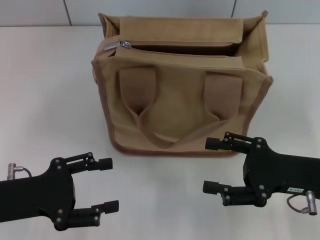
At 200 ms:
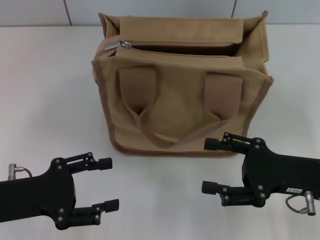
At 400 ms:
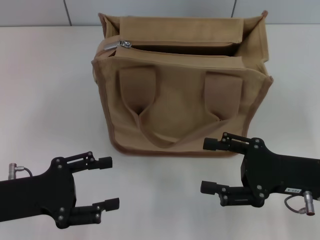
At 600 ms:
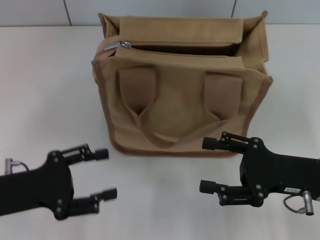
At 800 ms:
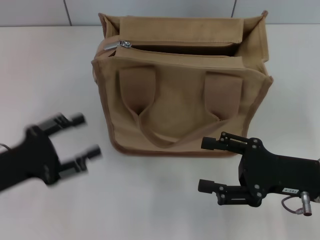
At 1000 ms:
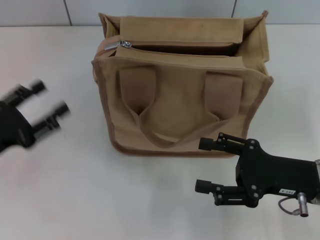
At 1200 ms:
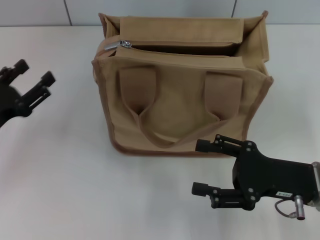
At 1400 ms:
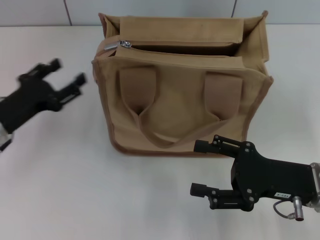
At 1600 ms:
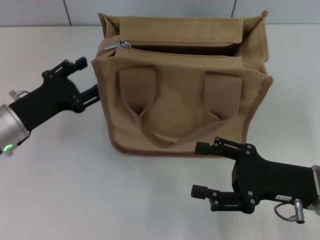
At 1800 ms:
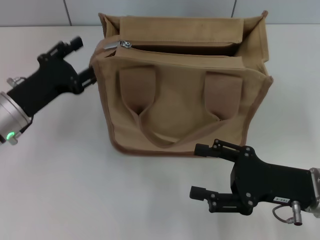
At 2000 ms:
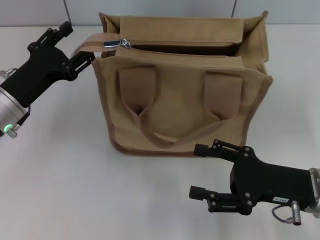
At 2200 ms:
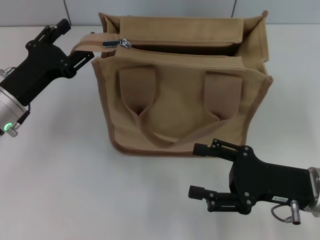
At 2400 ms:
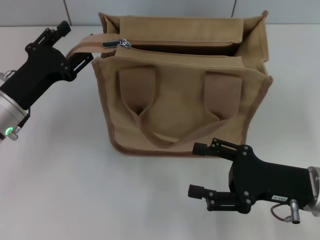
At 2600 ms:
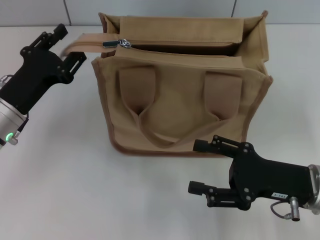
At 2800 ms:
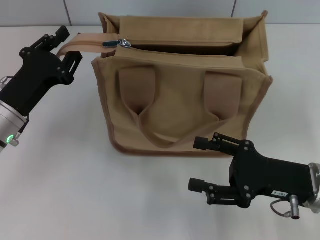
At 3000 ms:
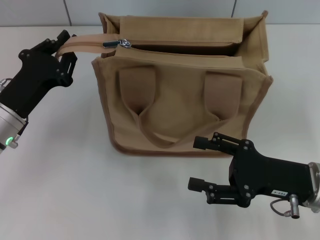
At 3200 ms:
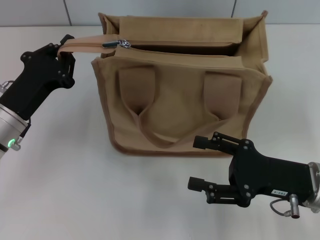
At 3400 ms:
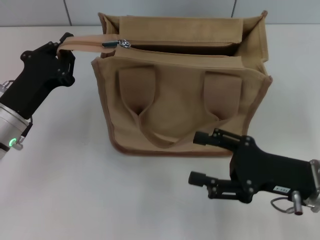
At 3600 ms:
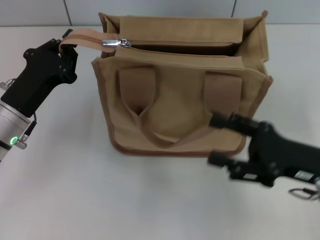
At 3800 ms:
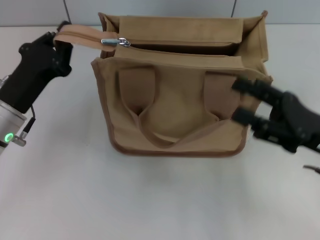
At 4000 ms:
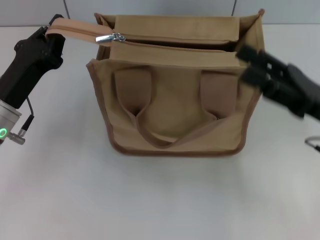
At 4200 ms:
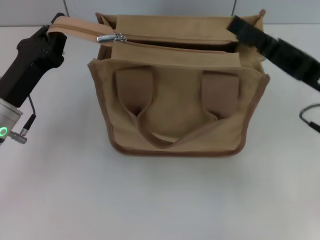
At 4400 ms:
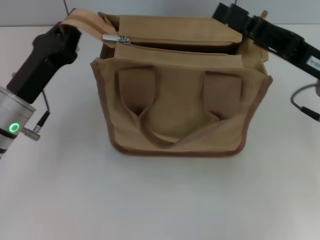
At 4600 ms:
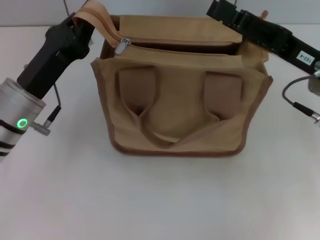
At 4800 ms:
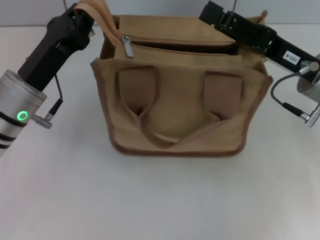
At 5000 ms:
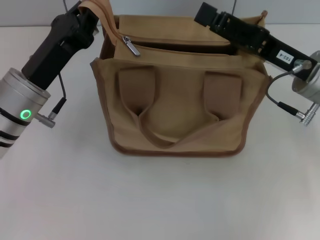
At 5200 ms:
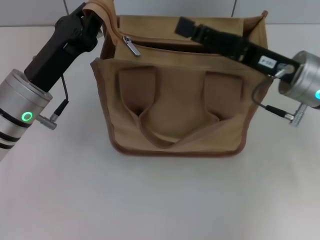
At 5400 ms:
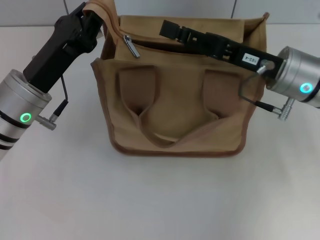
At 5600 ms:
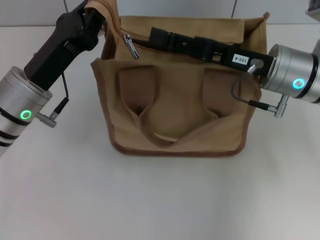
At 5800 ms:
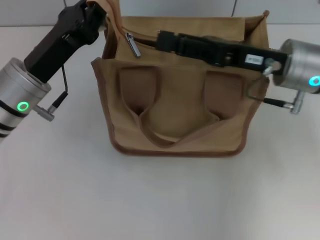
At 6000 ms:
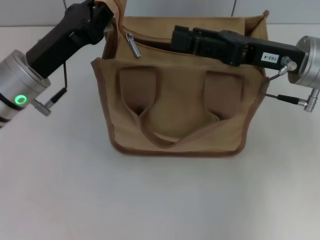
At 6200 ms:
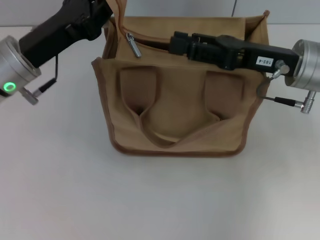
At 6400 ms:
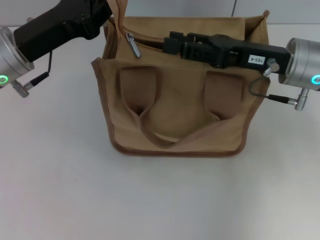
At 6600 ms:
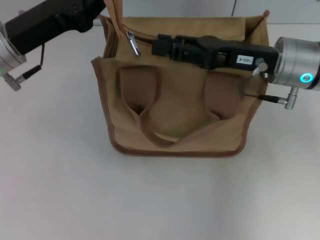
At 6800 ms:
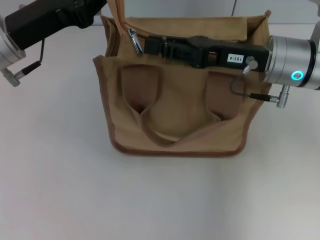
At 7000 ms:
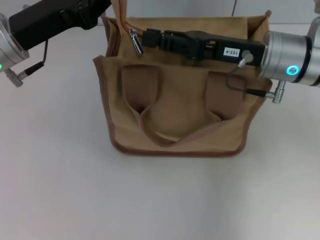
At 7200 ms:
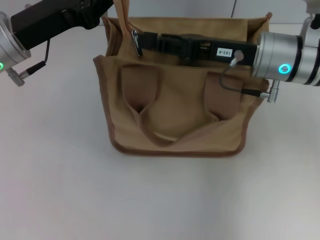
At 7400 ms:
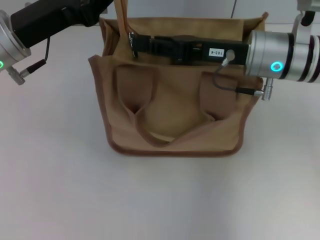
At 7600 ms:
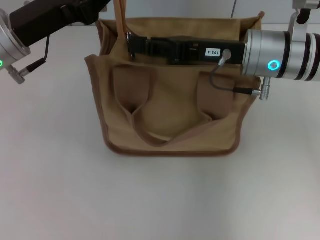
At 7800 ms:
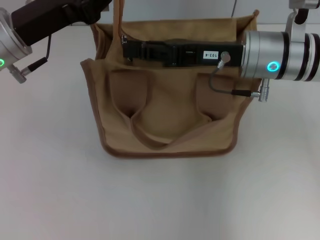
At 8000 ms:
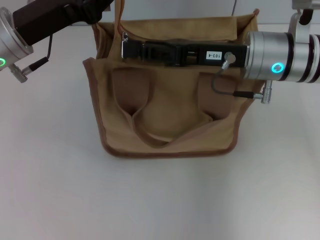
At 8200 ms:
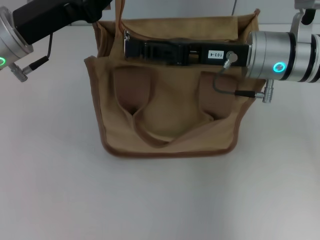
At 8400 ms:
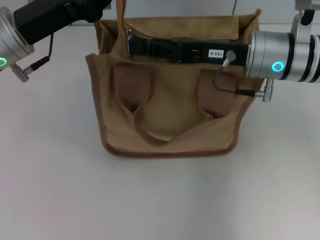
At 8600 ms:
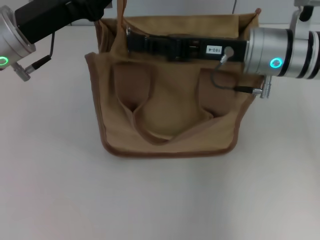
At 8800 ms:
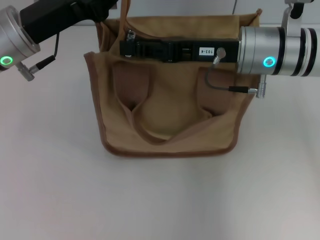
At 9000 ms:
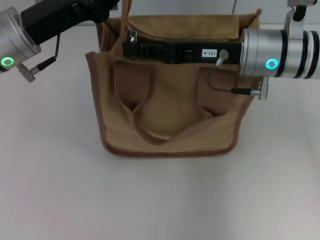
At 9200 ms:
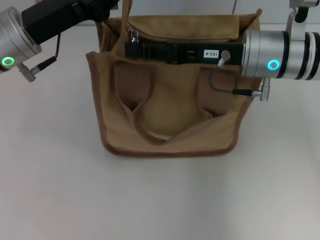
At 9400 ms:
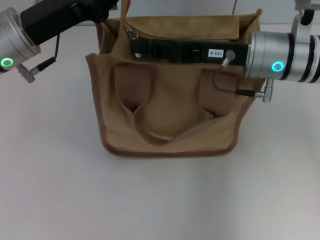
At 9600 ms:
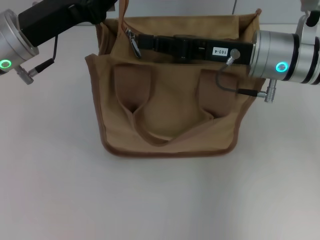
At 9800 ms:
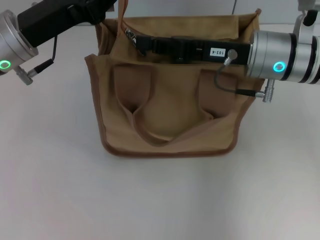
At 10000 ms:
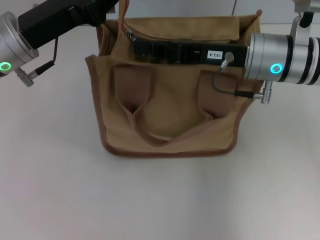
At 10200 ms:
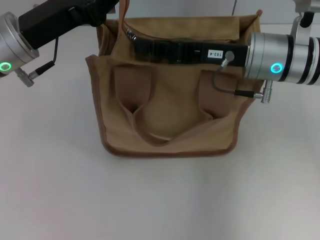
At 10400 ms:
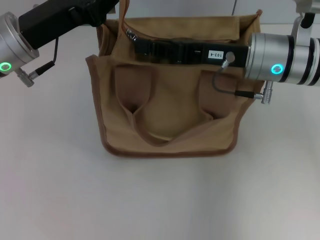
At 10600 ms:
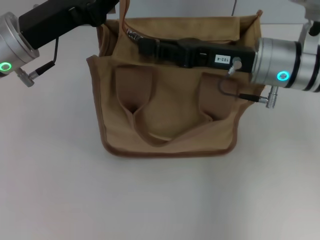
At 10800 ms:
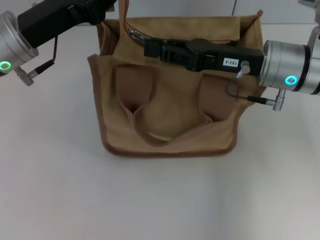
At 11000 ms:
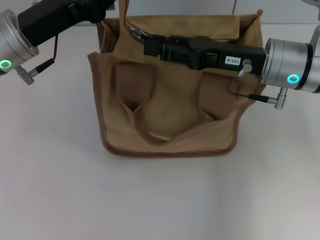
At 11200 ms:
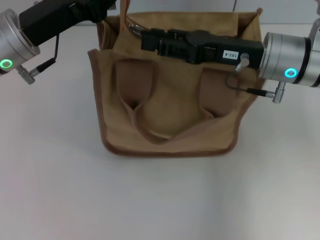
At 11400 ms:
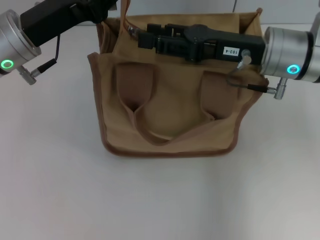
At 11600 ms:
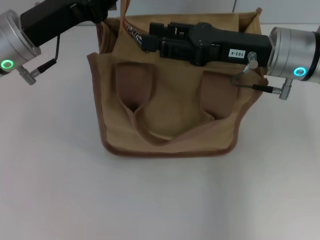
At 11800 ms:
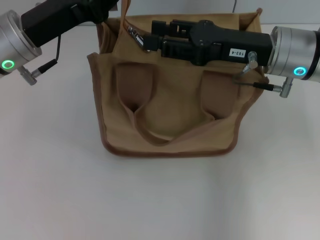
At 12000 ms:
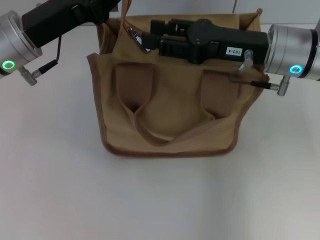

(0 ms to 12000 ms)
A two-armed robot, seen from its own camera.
0 ms - 1600 ms: The left gripper shifts approximately 10 cm forward.
1600 ms - 3000 ms: The left gripper closes.
3000 ms - 4400 ms: The left gripper closes. Meanwhile the right gripper shifts about 10 cm upward and forward.
4400 ms - 6000 ms: The left gripper moves some 5 cm.
6000 ms - 7600 ms: The left gripper shifts by about 5 cm. Meanwhile the right gripper goes about 5 cm to the left, and closes up.
7600 ms - 9000 ms: There are only small adjustments of the grippers.
9000 ms - 10400 ms: Neither gripper changes place.
10400 ms - 12000 ms: The right gripper opens.

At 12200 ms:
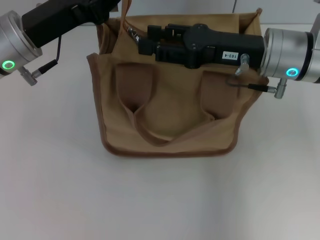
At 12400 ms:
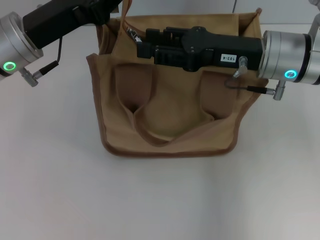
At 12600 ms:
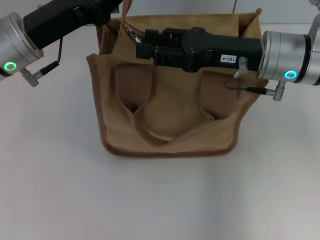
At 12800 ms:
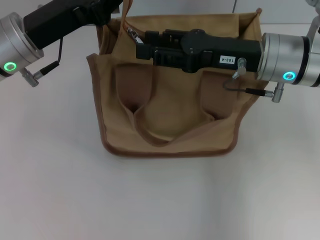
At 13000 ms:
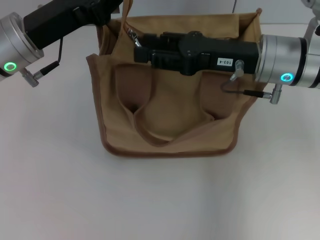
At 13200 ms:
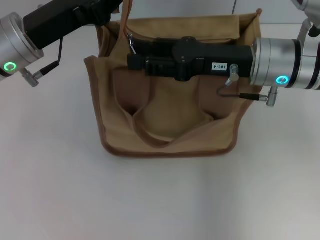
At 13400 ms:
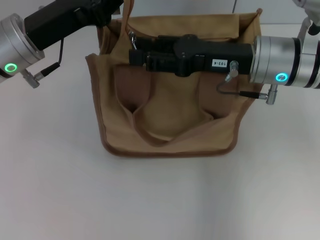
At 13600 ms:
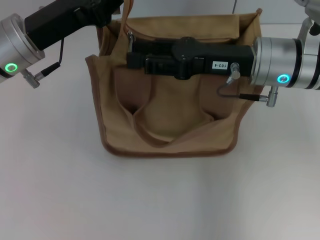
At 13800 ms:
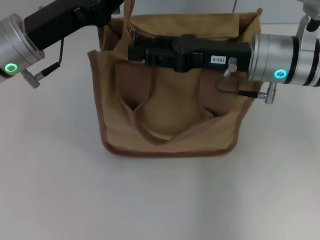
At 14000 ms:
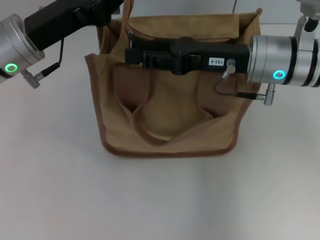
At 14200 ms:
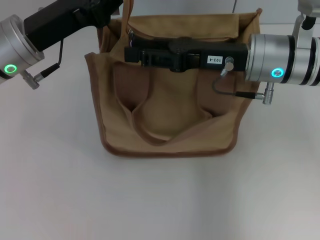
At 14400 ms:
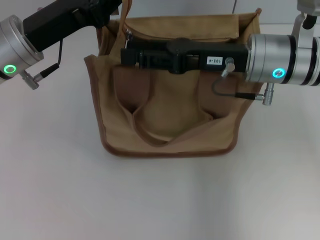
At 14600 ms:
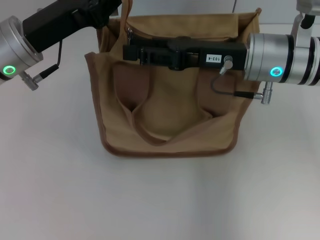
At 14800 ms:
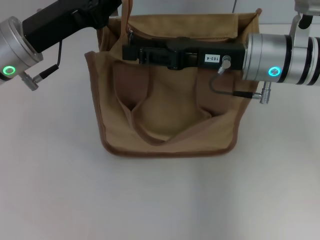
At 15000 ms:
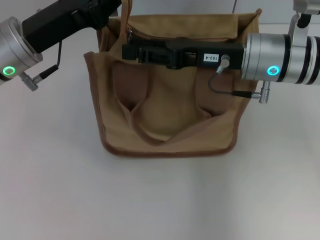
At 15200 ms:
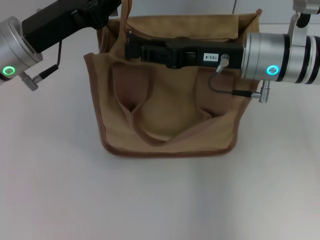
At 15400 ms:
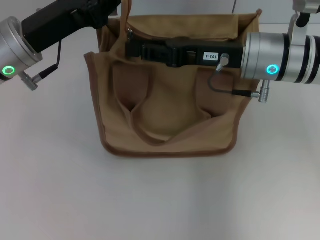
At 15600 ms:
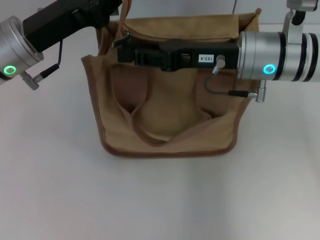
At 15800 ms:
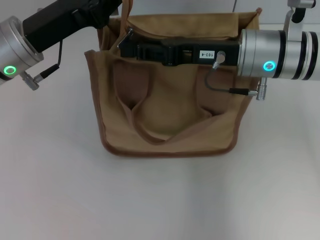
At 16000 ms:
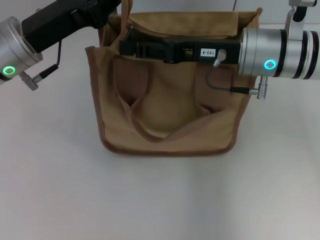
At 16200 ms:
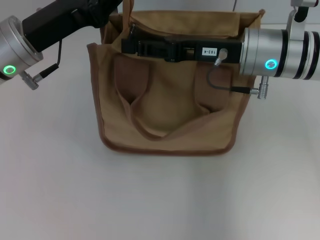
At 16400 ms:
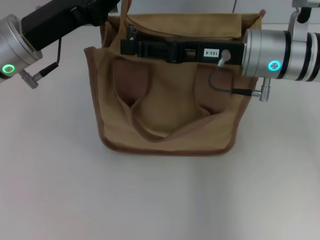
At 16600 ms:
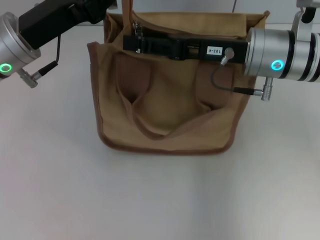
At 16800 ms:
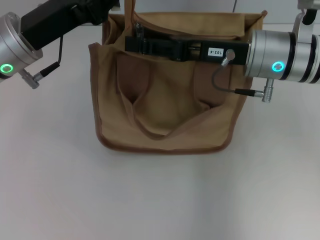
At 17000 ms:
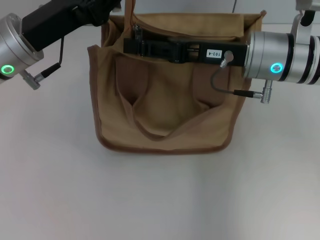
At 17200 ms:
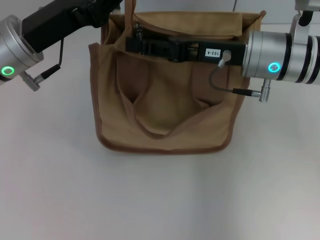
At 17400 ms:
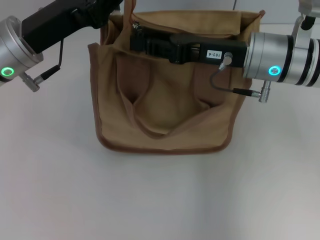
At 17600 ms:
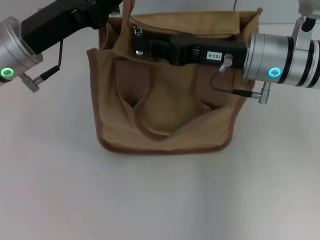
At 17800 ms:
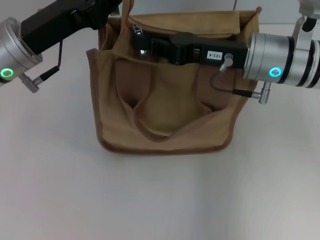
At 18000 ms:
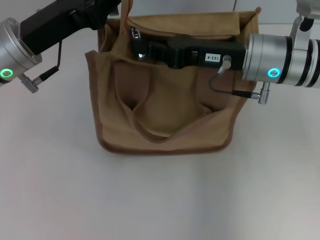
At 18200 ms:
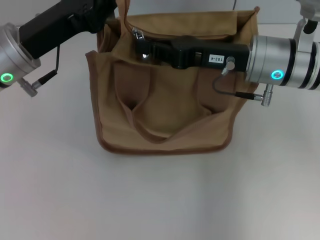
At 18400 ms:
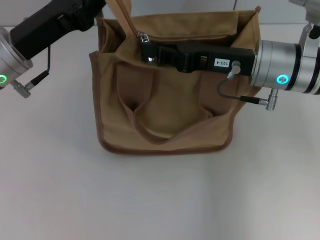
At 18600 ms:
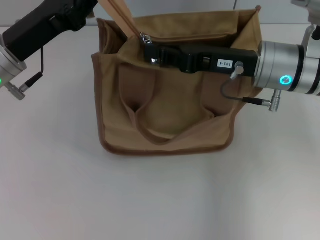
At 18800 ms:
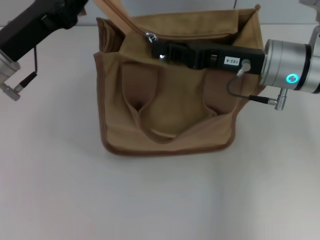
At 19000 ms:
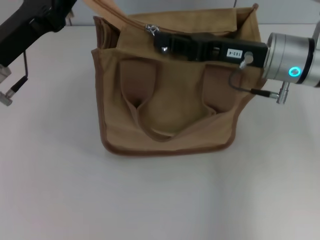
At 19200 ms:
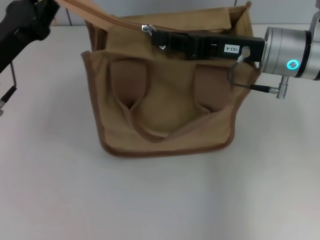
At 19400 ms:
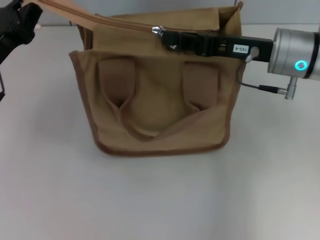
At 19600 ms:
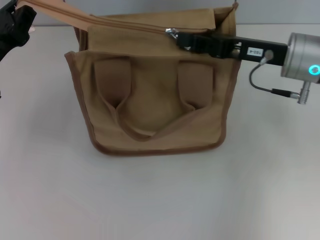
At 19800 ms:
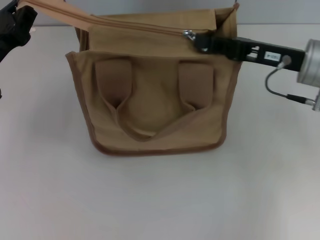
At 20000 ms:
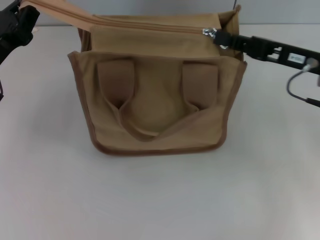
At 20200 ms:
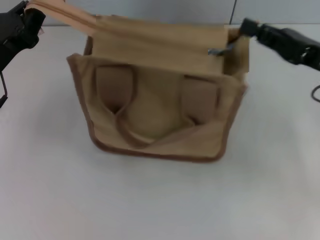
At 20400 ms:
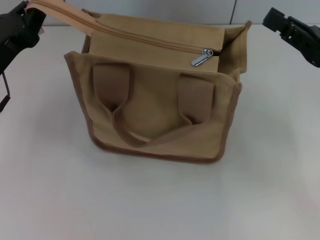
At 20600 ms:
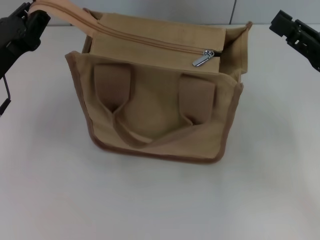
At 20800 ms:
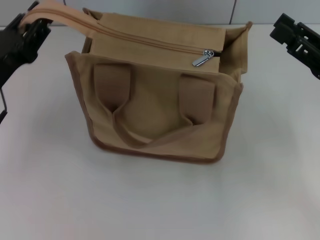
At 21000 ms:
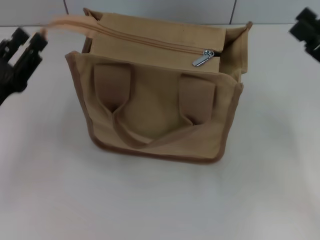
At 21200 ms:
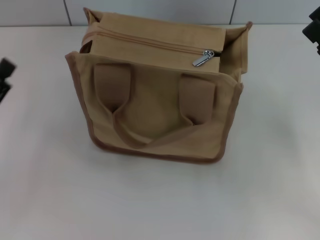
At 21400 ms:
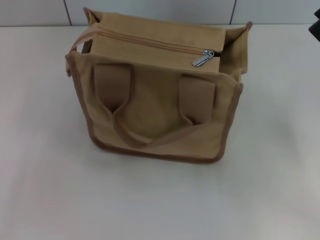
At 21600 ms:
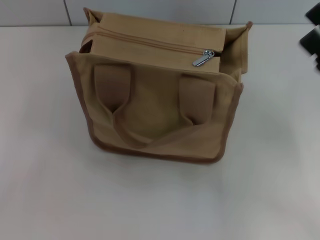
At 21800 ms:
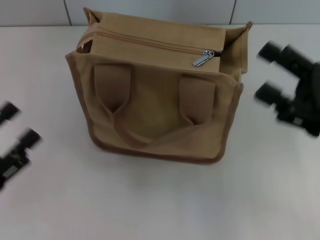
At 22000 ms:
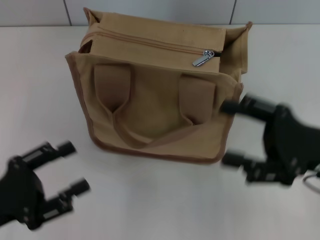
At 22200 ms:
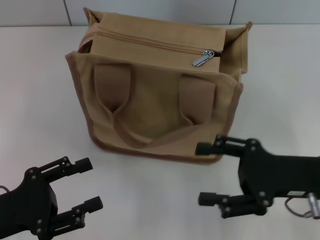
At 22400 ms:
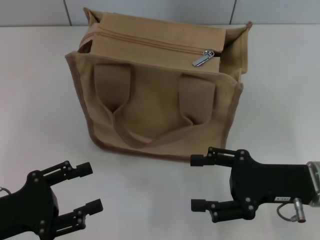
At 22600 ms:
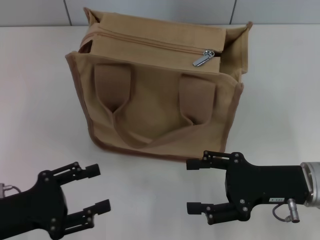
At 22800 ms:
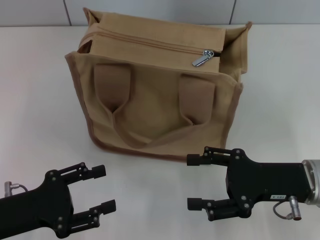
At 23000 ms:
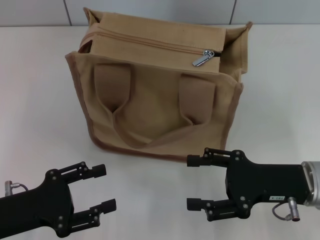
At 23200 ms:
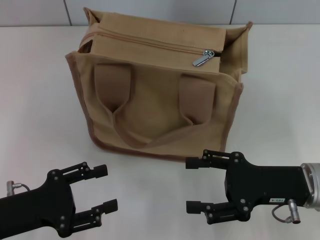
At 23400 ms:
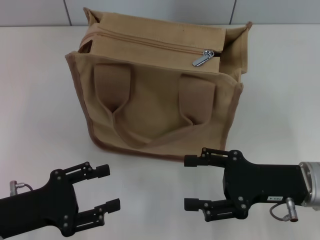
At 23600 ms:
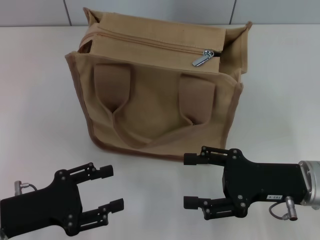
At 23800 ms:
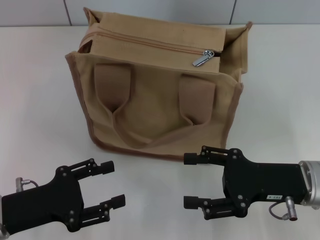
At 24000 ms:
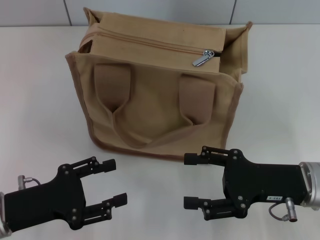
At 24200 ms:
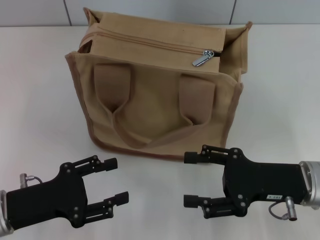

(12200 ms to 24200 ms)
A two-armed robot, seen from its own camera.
Step, 12200 ms - 20000 ms: Pull up the zipper with your right hand.
Step, 20400 ms - 21000 ms: Grab the zipper with your left hand.
12200 ms - 13800 ms: The grippers move only a little.
13800 ms - 15200 ms: Neither gripper changes place.
15200 ms - 16600 ms: The two grippers keep their place.
16600 ms - 18200 ms: The right gripper closes.
18200 ms - 19800 ms: The left gripper travels to the left by about 5 cm. The right gripper moves to the right, some 5 cm.
19800 ms - 21200 ms: The left gripper is displaced backward by some 10 cm, and opens its fingers, while the right gripper heads backward and to the right, covering roughly 10 cm, and opens its fingers.
21200 ms - 22600 ms: The right gripper is displaced to the left by some 10 cm.
22600 ms - 24200 ms: The grippers stay close to where they were, moving slightly.
